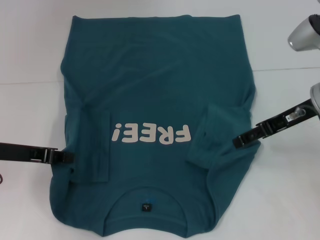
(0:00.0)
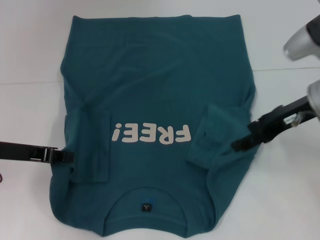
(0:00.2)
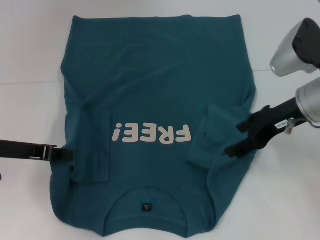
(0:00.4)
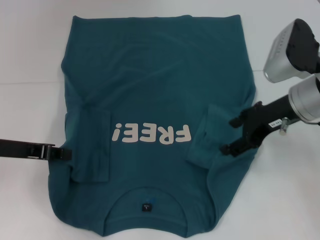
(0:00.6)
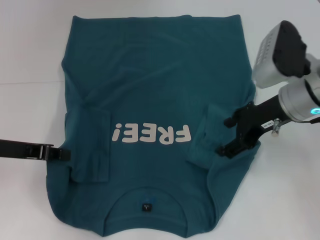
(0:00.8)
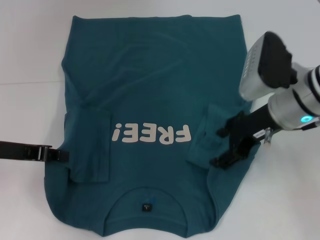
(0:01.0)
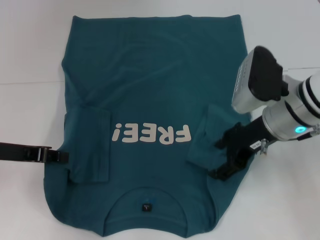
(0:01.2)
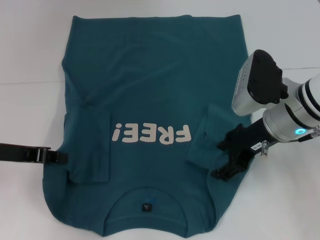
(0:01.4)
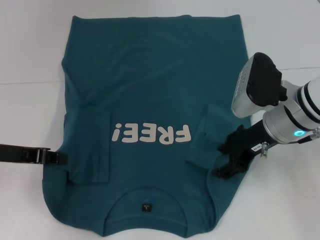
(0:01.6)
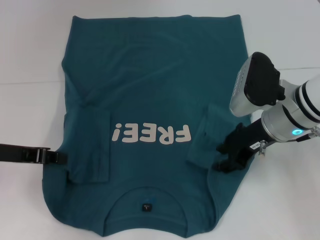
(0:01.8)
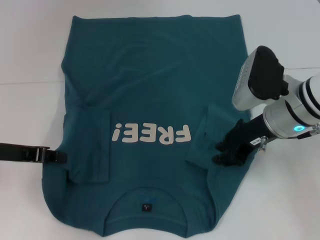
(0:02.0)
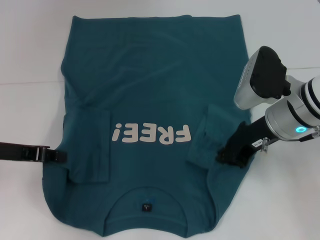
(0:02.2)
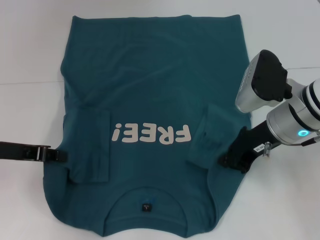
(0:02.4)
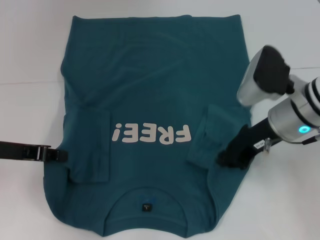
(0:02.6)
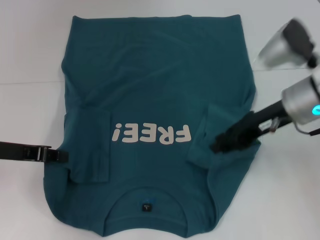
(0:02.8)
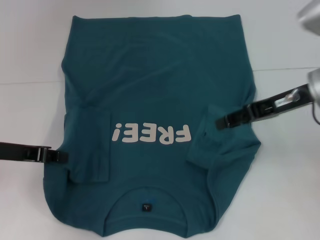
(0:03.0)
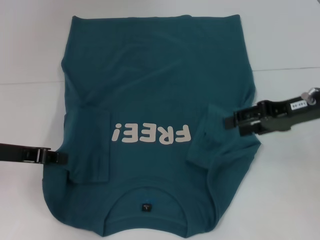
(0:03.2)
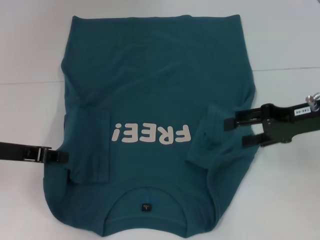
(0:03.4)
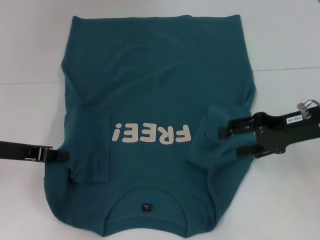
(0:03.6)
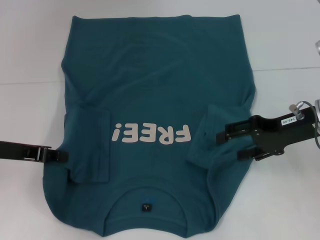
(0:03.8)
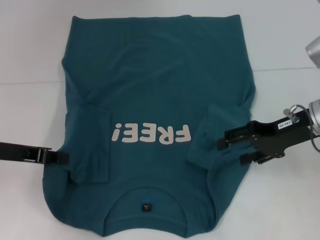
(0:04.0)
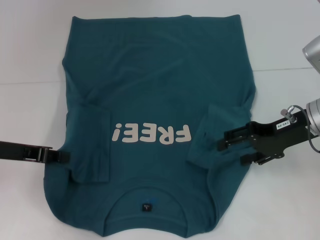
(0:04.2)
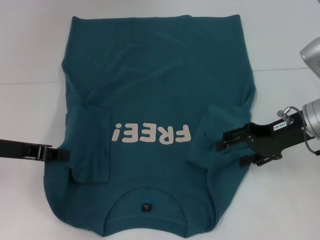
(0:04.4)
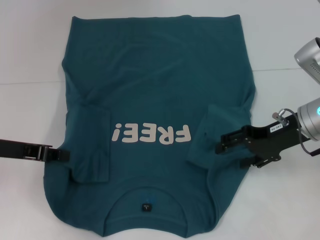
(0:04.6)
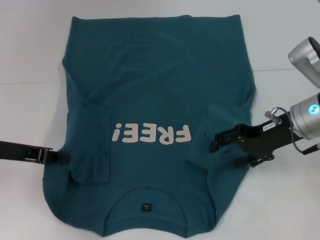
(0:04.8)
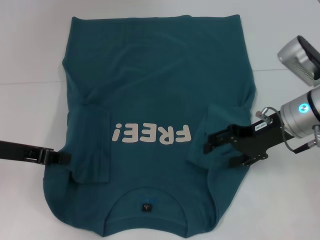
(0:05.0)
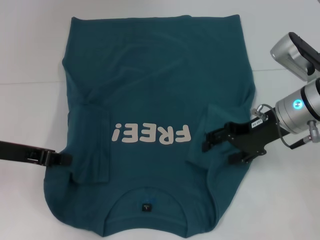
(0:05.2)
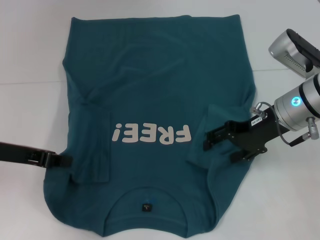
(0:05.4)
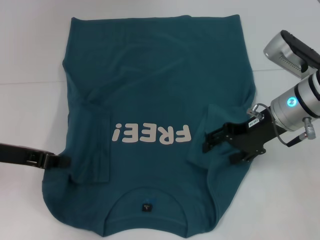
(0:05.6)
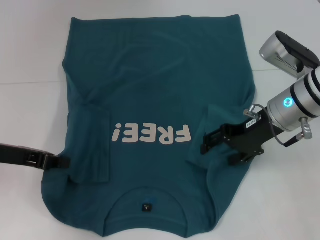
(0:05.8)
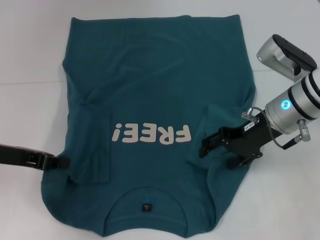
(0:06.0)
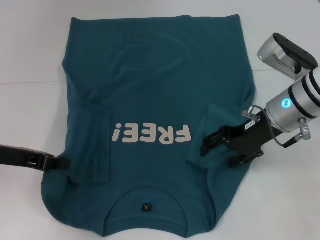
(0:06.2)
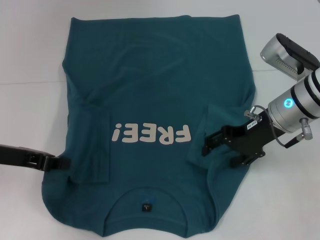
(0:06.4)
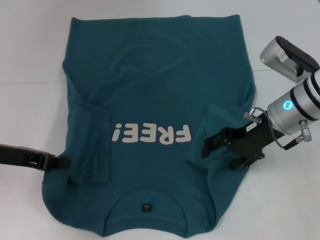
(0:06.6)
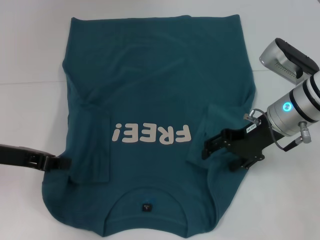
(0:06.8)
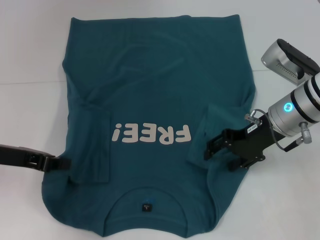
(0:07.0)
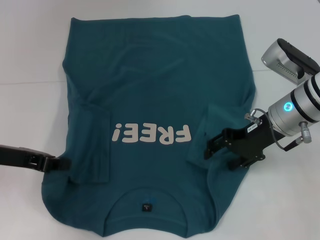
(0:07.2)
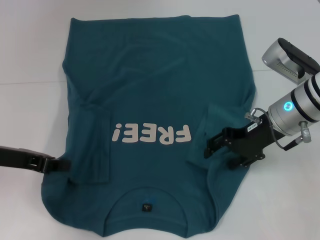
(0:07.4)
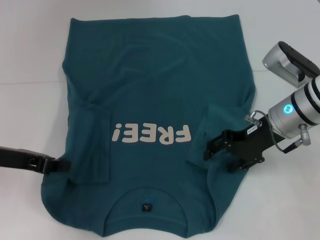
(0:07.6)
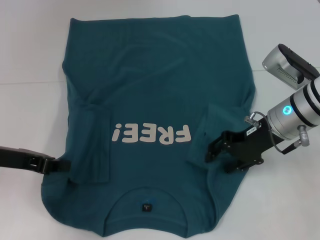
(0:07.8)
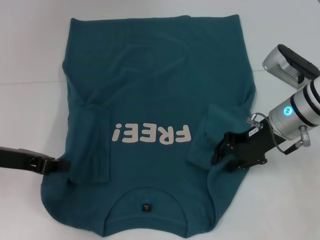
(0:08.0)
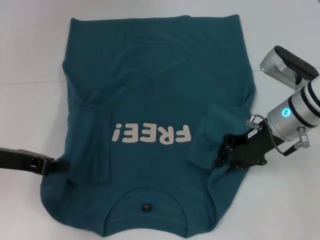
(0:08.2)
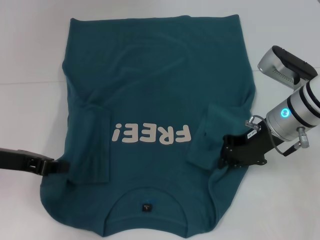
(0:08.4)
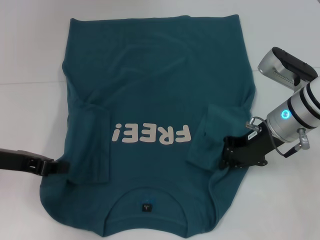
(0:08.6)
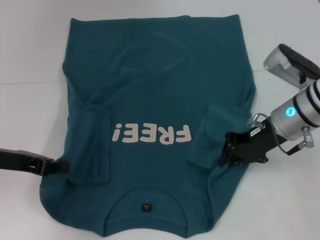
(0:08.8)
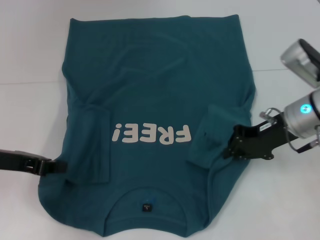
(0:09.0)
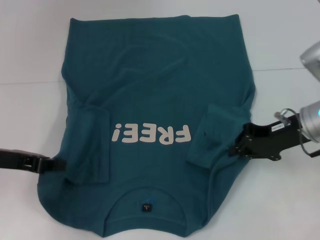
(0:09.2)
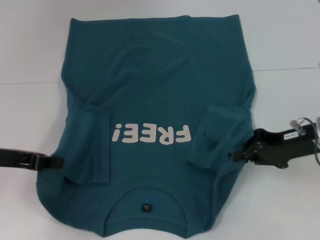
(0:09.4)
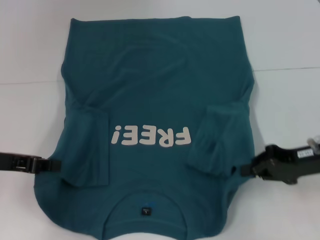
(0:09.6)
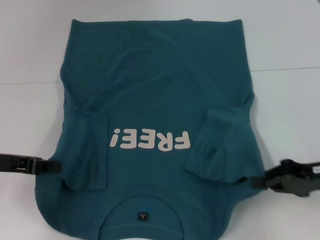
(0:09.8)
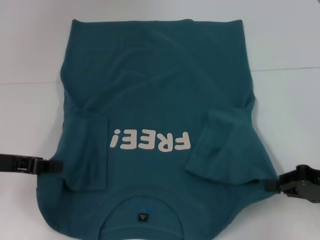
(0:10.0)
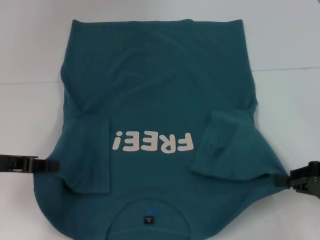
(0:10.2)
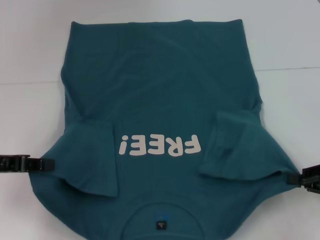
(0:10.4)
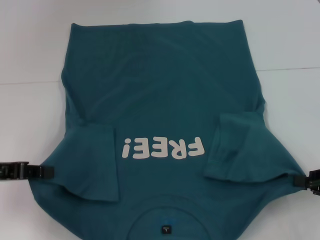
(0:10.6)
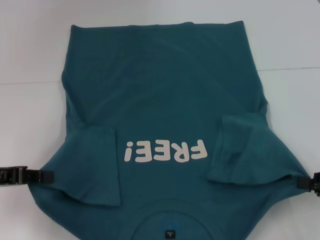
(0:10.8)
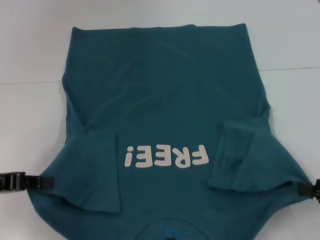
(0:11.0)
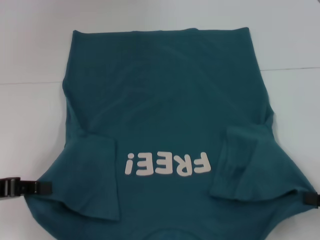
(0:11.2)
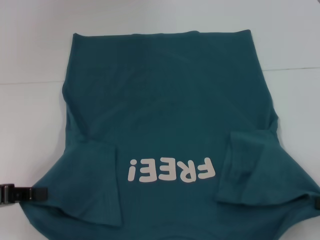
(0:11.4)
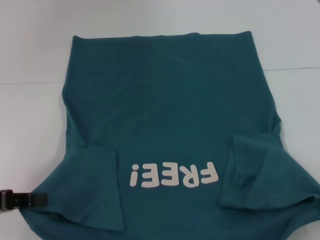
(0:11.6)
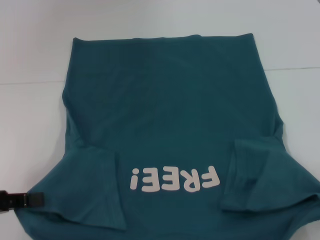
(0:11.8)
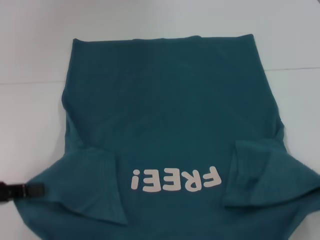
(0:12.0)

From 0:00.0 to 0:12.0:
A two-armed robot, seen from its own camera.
Step, from 0:00.0 to 0:10.0: Grab the bottom right corner with your right hand.
From 0:00.0 to 0:01.6: The right gripper goes about 5 cm to the left.
From 0:01.6 to 0:03.0: The right gripper goes about 10 cm to the right and upward, and closes.
From 0:03.0 to 0:04.4: The right gripper opens its fingers.
From 0:04.4 to 0:06.0: The right gripper heads to the left, covering about 5 cm.
From 0:06.0 to 0:07.6: Both grippers stay put.
From 0:07.6 to 0:09.0: The right gripper closes.
From 0:09.0 to 0:10.4: The right gripper travels to the right and backward by approximately 20 cm.
From 0:10.4 to 0:12.0: The grippers both shift backward by roughly 5 cm.

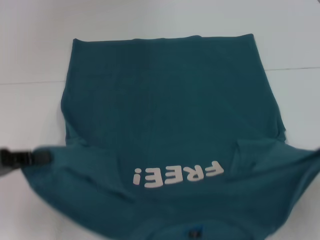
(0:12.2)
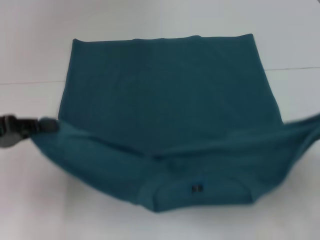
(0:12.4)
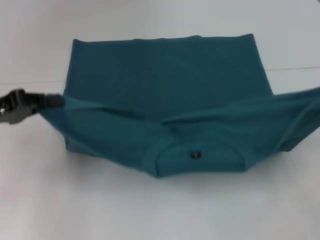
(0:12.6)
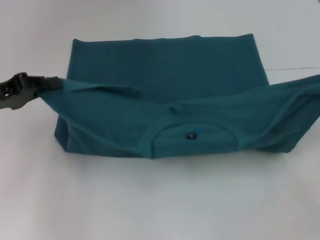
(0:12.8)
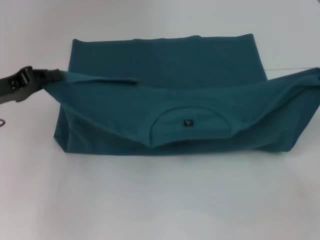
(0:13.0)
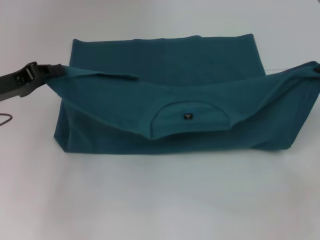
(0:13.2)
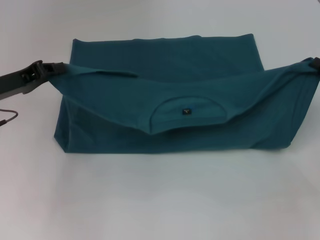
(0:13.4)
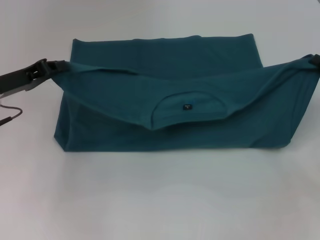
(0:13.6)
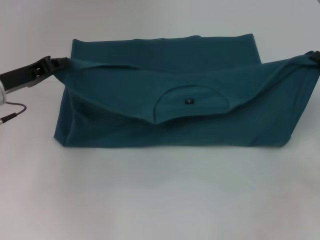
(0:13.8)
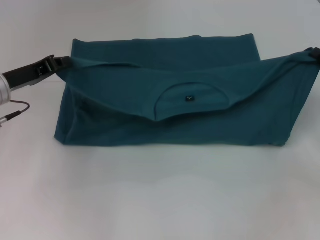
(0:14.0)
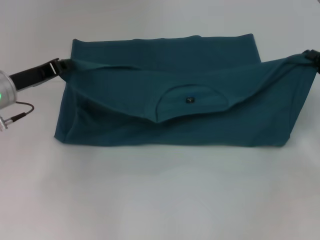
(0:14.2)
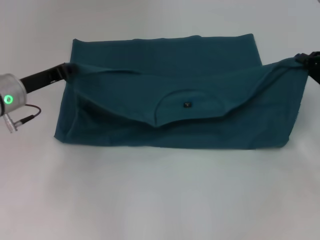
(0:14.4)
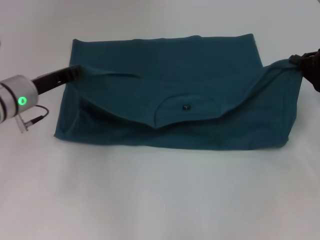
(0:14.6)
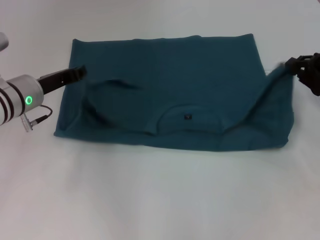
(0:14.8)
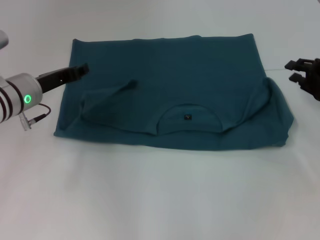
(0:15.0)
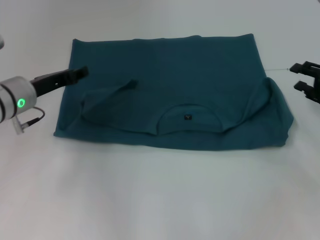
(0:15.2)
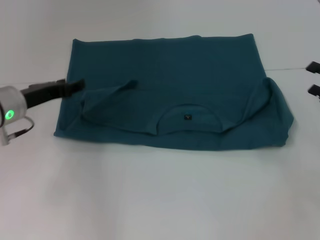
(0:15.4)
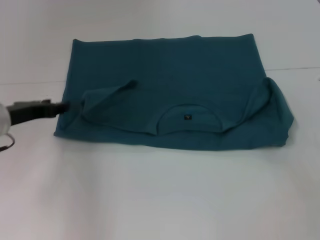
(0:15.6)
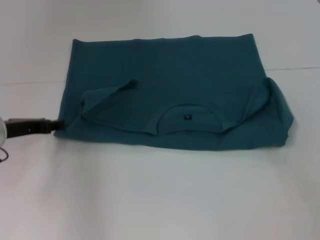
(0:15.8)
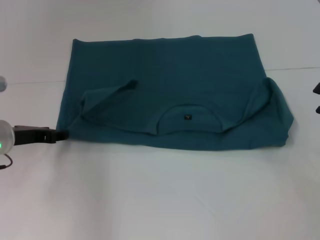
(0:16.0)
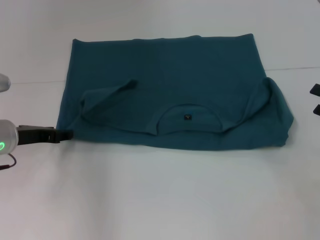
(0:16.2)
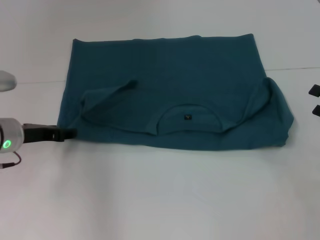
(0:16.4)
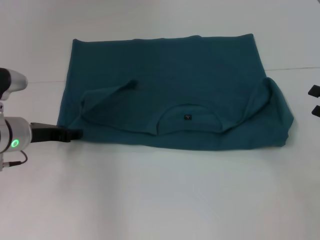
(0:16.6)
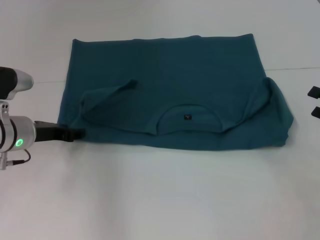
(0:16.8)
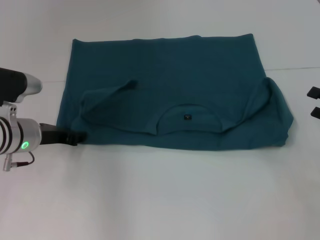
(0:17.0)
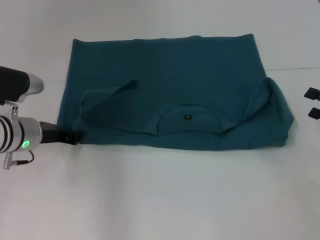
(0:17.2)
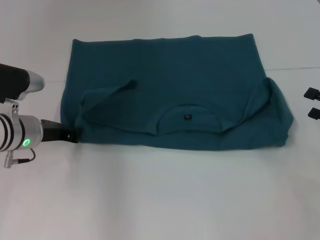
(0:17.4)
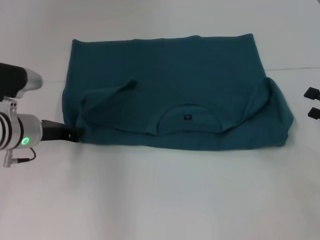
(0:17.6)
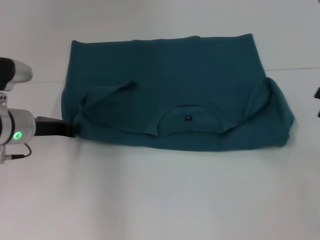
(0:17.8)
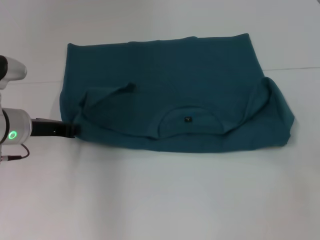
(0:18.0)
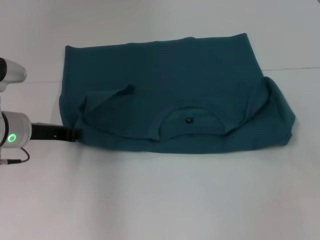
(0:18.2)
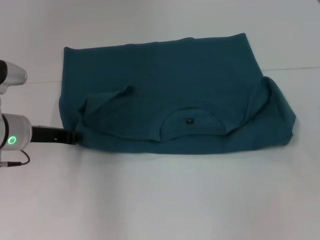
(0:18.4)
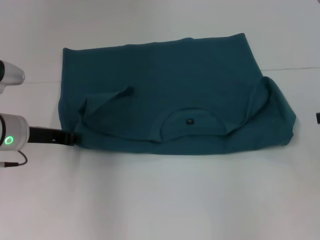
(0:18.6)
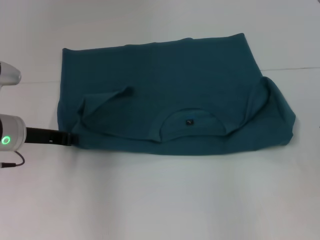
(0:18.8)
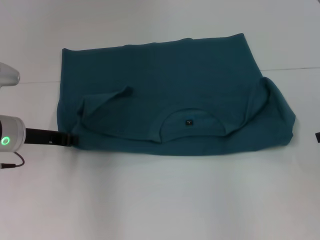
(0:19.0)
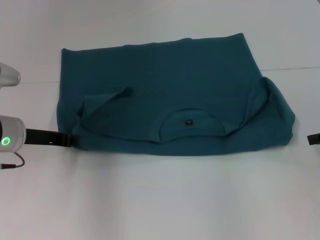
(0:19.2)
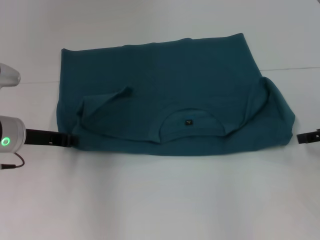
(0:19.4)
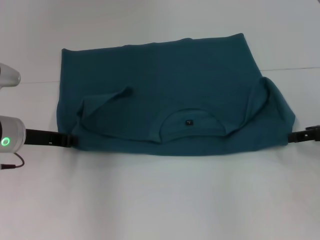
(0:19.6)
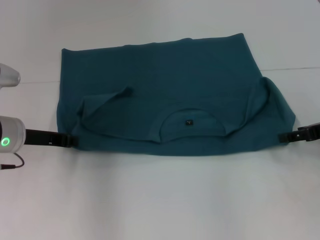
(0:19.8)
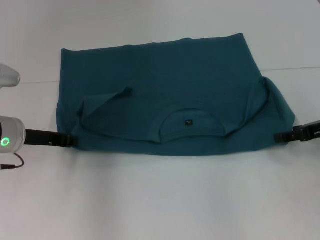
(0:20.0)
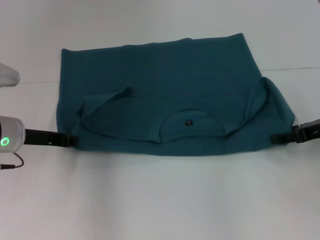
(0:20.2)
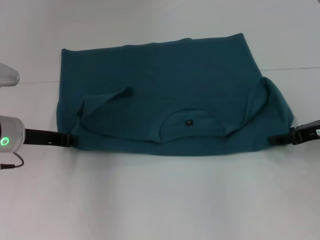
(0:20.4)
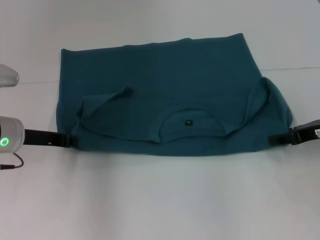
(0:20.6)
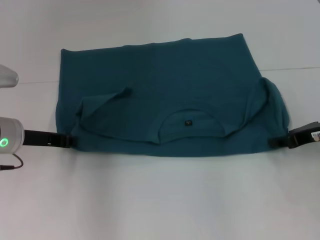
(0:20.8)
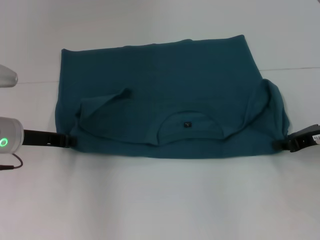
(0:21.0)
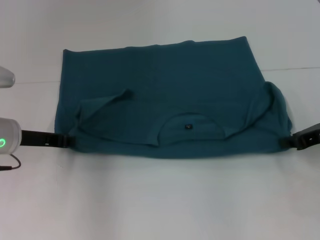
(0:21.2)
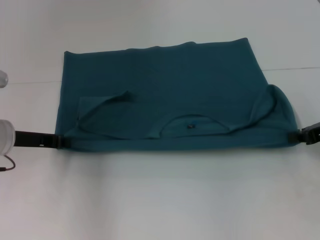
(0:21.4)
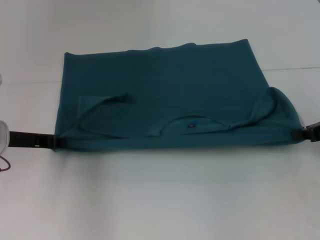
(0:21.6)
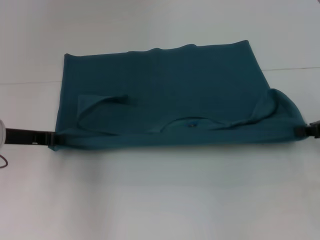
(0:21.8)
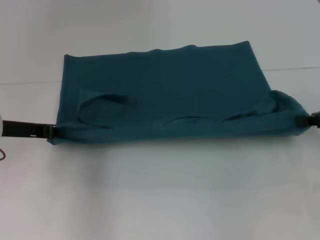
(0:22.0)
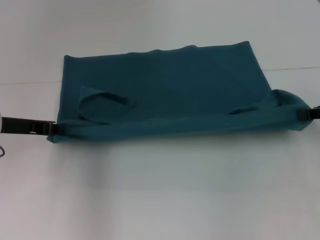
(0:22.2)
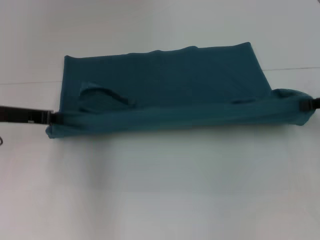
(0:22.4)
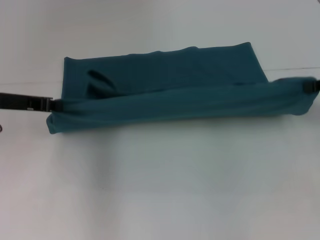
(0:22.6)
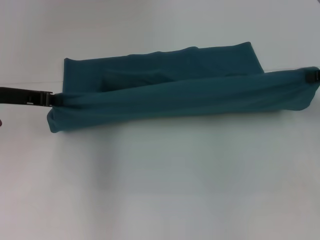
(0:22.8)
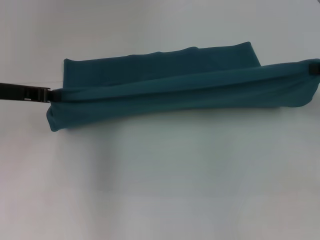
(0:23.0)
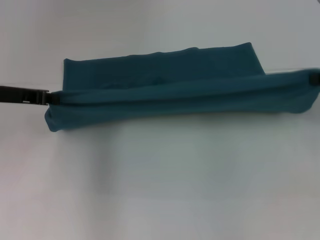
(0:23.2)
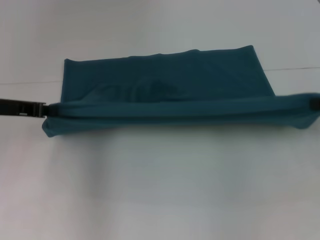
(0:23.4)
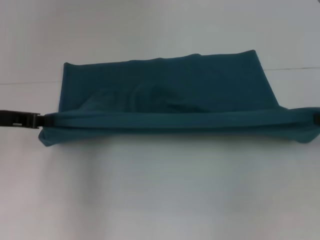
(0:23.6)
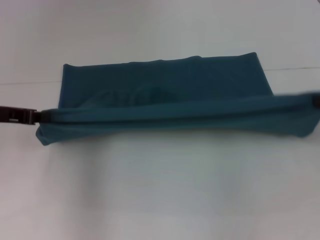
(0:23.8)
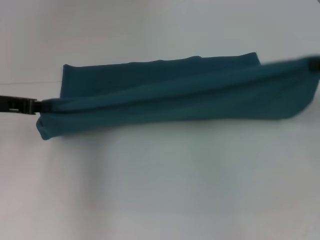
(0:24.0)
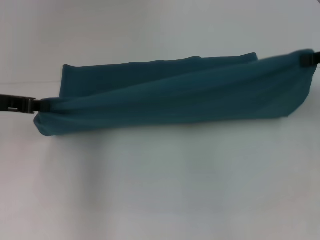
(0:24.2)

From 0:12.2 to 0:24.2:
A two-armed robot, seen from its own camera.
Step, from 0:12.2 to 0:15.2: Fold the clothes to the left.
Step, from 0:12.2 to 0:15.2: Fold the clothes to the right.
From 0:12.2 to 0:13.8: The right gripper moves forward, approximately 15 cm. The left gripper shifts about 15 cm forward and to the right.
From 0:13.8 to 0:15.2: The left gripper changes place by some 5 cm.
From 0:15.2 to 0:16.6: The right gripper shifts some 5 cm backward, and opens its fingers.
From 0:16.6 to 0:18.2: The left gripper closes its fingers. The right gripper goes some 10 cm upward.
From 0:18.2 to 0:19.8: The right gripper is displaced to the left, forward and downward by some 10 cm.
From 0:19.8 to 0:21.2: The right gripper closes its fingers.
From 0:21.2 to 0:22.6: The two grippers go approximately 5 cm upward.
From 0:22.6 to 0:24.2: The right gripper ends up some 5 cm from where it was.
